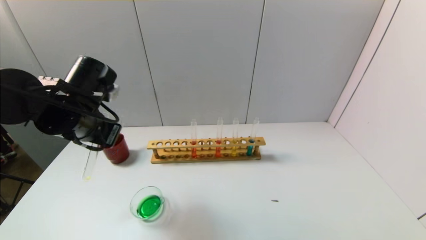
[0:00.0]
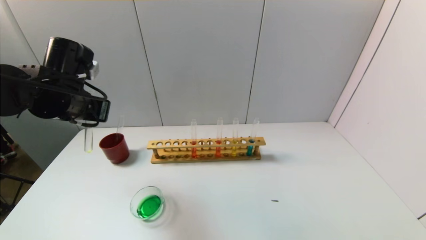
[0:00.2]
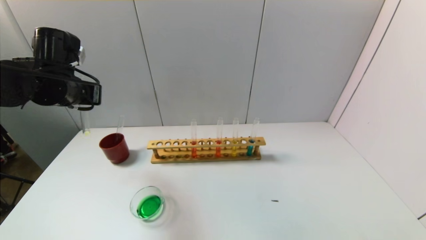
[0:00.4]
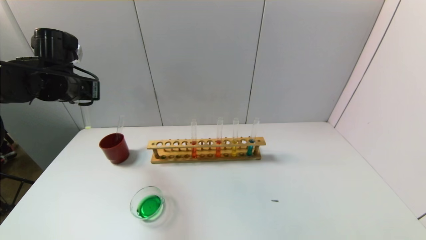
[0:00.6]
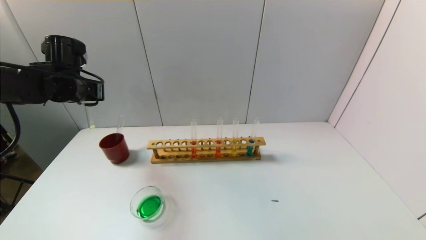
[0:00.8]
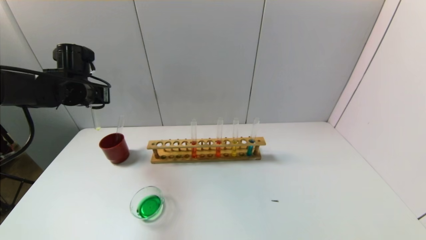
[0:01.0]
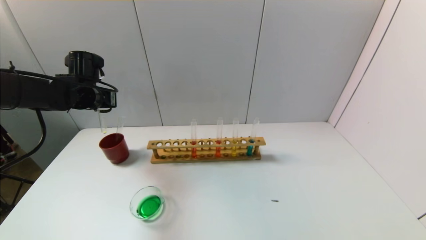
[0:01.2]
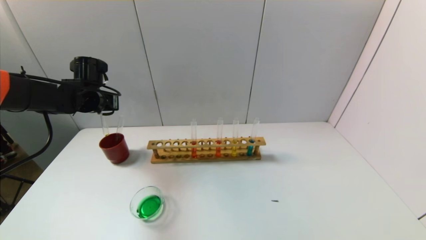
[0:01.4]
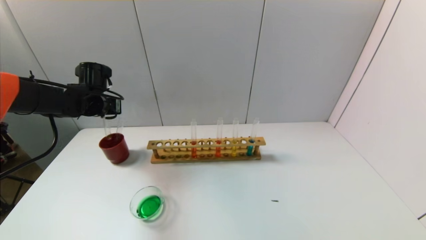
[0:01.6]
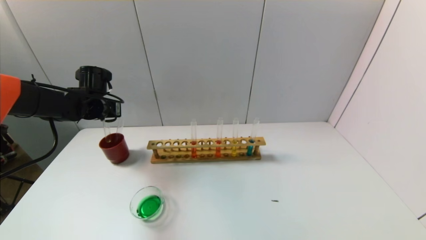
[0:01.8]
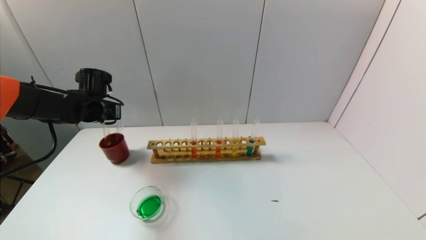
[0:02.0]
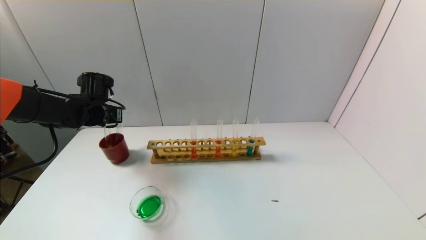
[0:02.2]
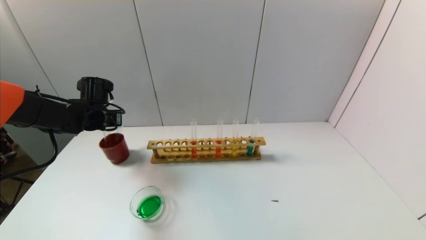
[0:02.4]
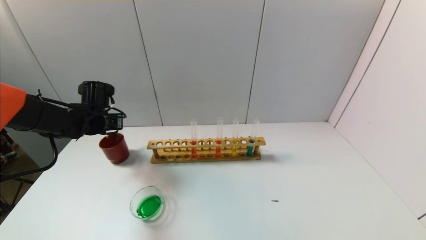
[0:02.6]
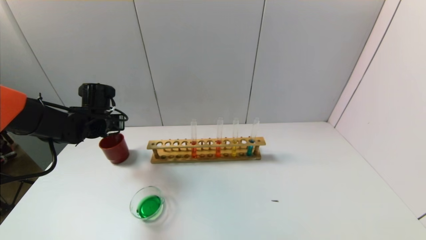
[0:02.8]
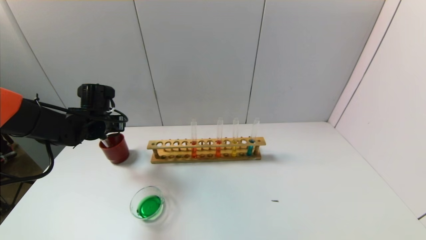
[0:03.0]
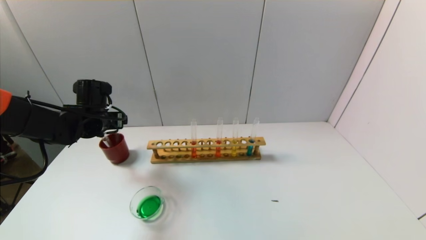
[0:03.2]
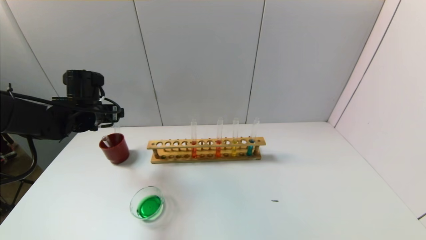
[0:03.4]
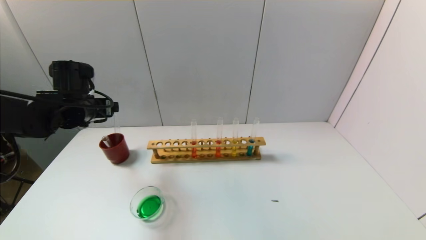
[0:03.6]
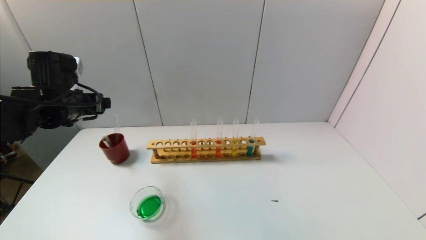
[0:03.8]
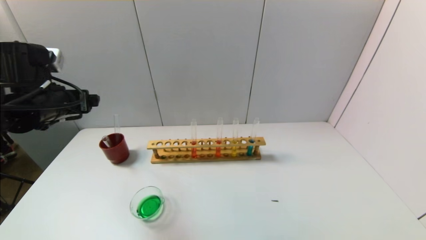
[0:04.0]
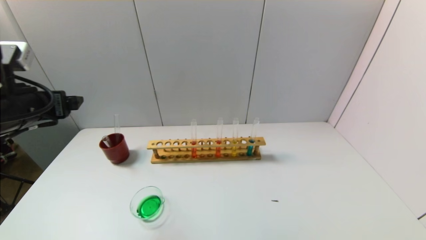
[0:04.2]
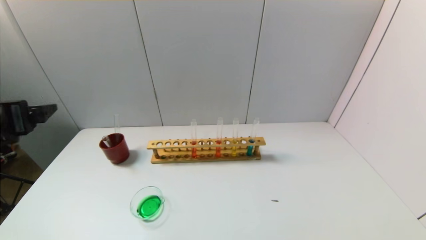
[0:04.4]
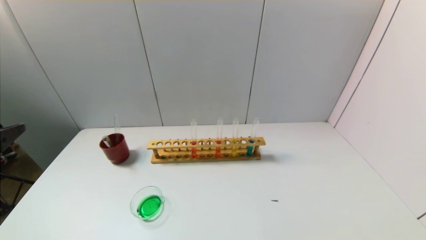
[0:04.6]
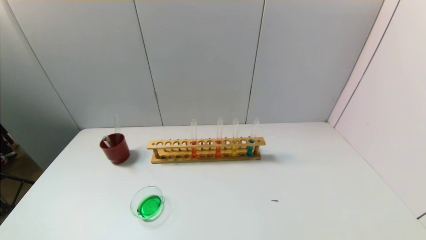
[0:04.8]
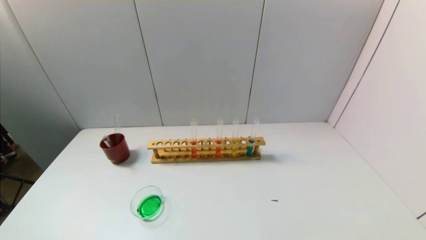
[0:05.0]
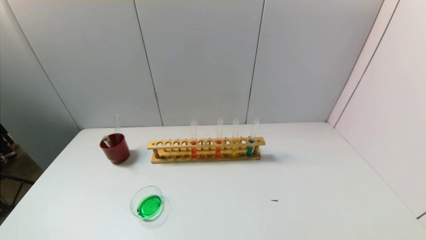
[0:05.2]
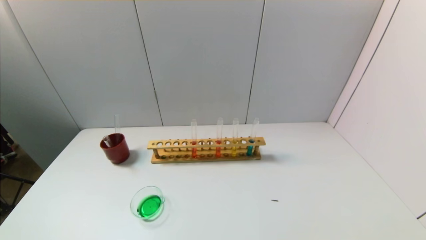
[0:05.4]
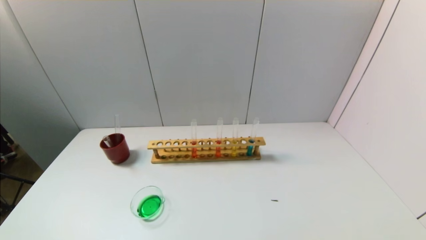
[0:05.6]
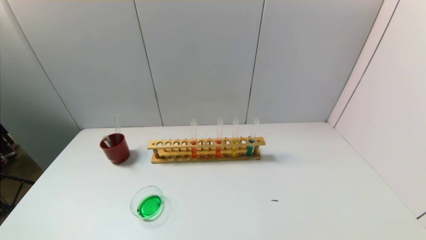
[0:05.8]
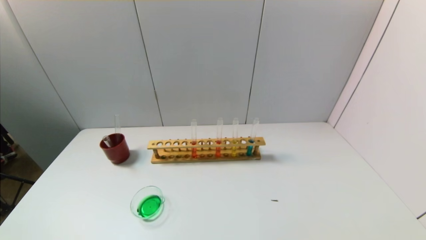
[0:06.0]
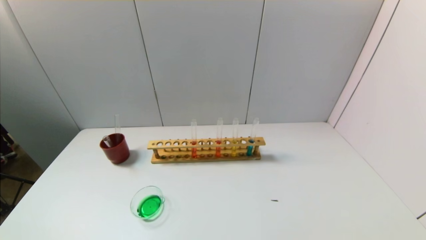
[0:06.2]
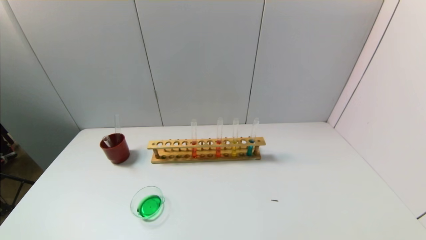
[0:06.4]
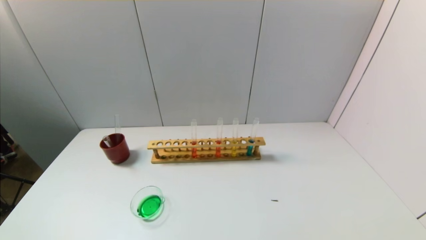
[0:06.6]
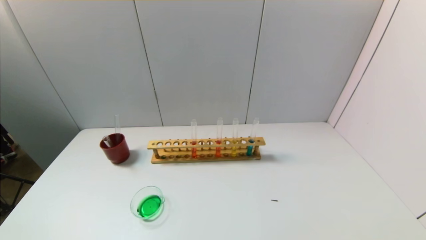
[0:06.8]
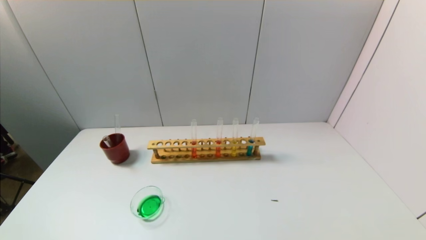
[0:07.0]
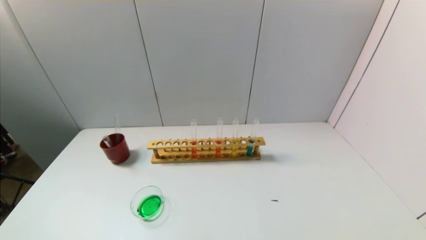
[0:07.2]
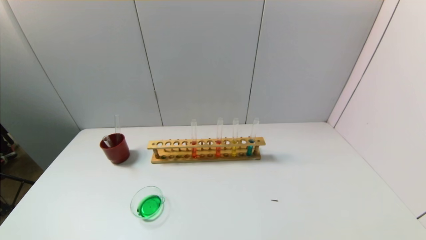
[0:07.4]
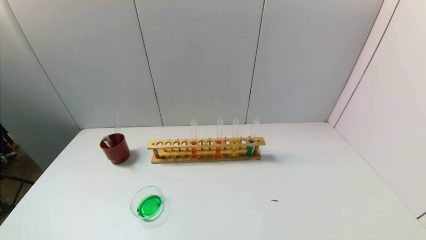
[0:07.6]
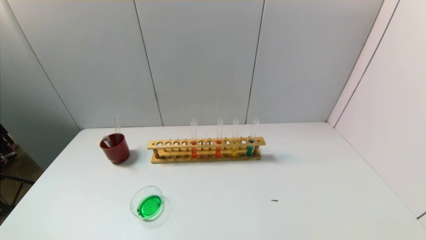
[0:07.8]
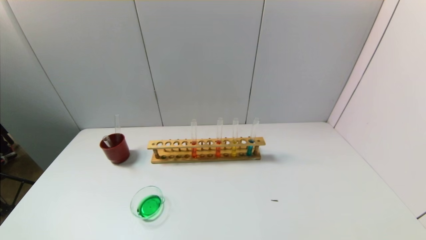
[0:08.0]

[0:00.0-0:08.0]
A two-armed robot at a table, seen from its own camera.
Task of the whole recording: pick up the test tube with yellow pigment and the test tube with blue pigment by grippers and pour them into the beaker.
Step, 0:00.0 to 0:03.0: Place the test tube into the brown cup with the left gripper.
0:00.0 to 0:01.6: The left gripper moves forward and to the left, about 15 cm.
0:01.6 to 0:03.2: The left gripper moves about 5 cm, and opens up.
0:03.2 to 0:04.8: The left gripper goes approximately 35 cm backward.
0:06.4 to 0:08.0: Both grippers stay put.
